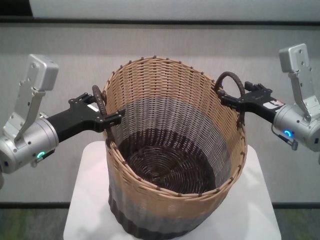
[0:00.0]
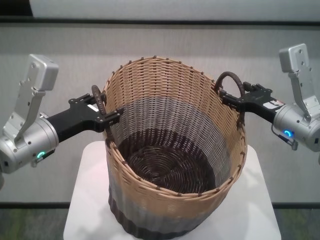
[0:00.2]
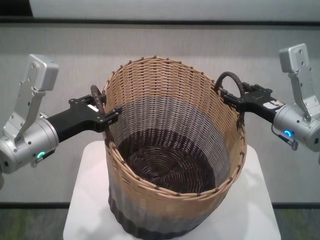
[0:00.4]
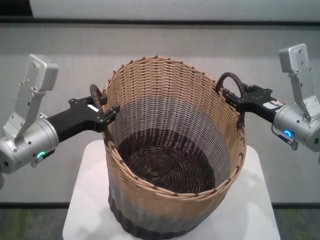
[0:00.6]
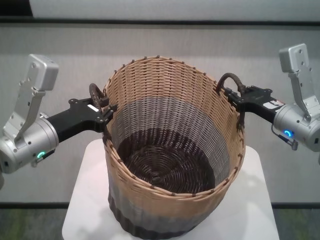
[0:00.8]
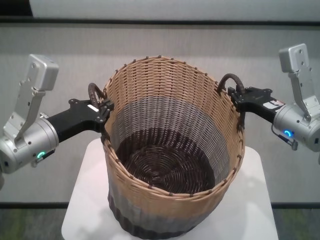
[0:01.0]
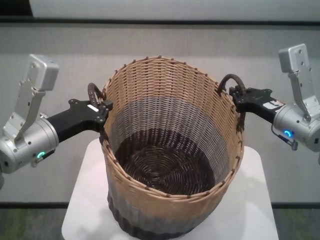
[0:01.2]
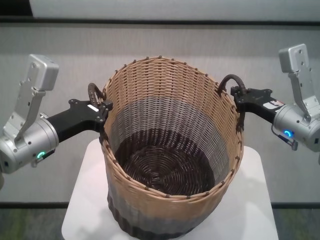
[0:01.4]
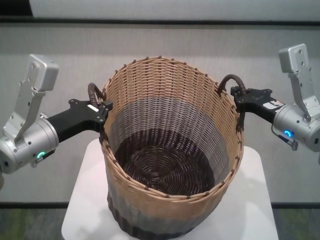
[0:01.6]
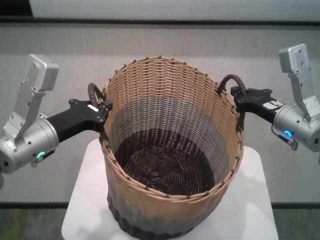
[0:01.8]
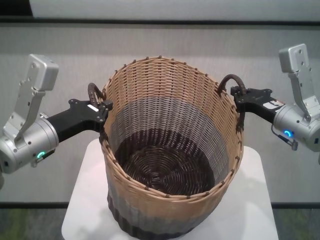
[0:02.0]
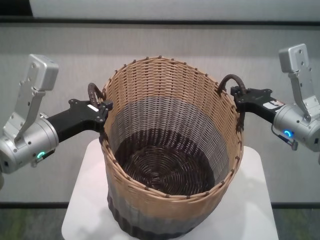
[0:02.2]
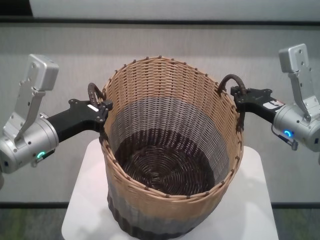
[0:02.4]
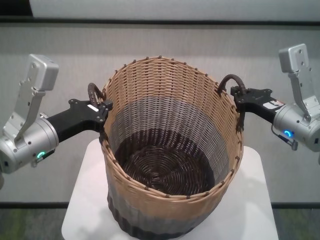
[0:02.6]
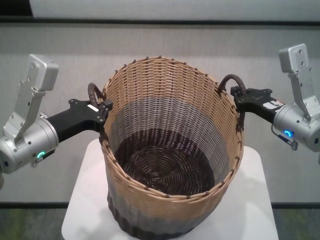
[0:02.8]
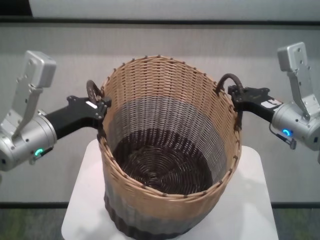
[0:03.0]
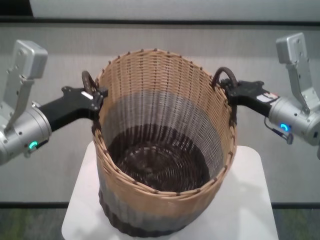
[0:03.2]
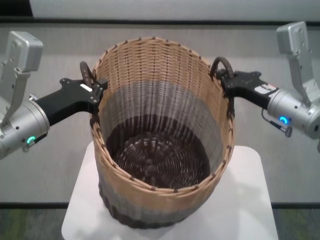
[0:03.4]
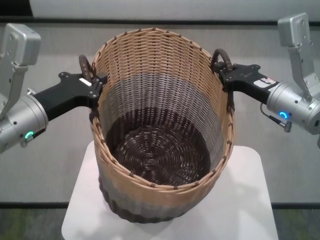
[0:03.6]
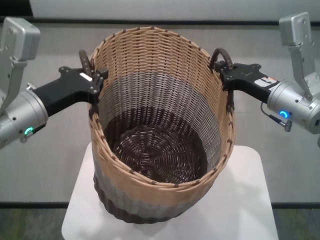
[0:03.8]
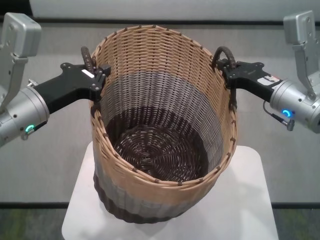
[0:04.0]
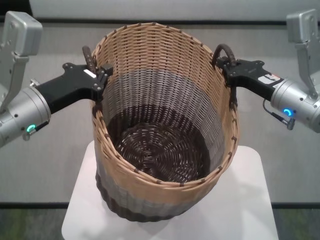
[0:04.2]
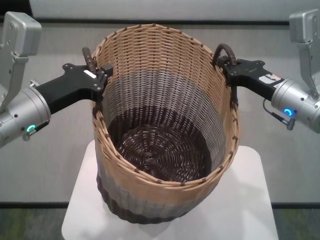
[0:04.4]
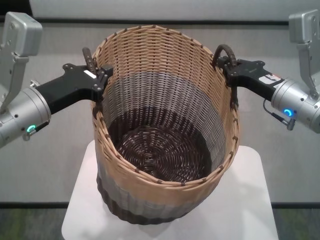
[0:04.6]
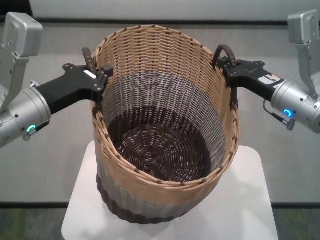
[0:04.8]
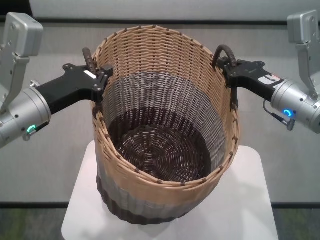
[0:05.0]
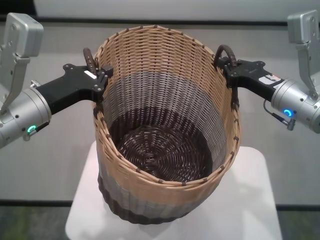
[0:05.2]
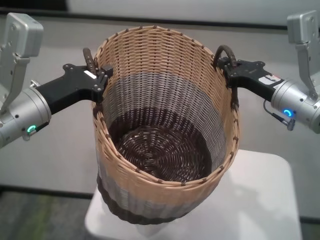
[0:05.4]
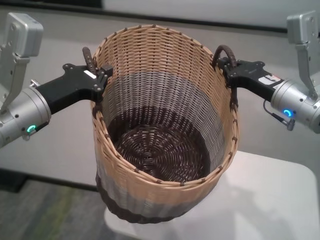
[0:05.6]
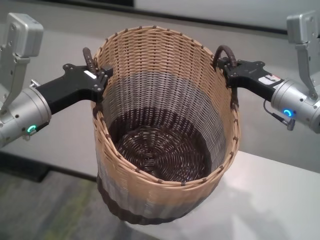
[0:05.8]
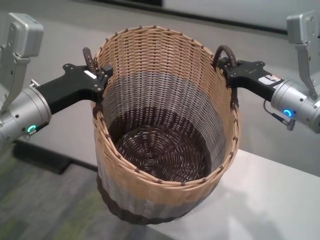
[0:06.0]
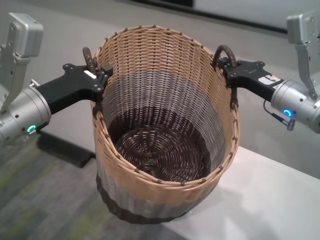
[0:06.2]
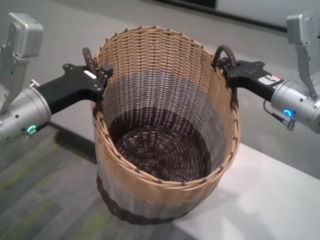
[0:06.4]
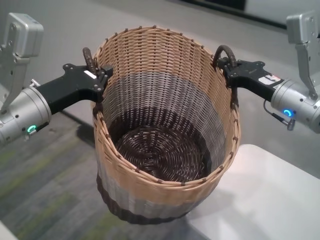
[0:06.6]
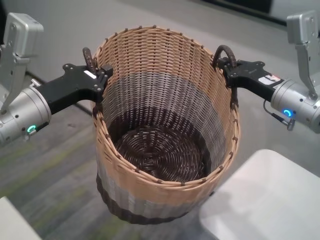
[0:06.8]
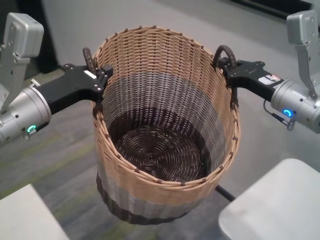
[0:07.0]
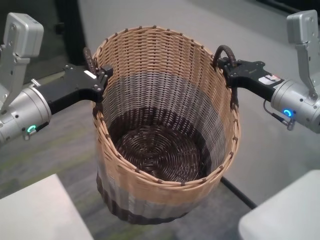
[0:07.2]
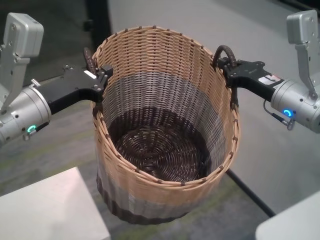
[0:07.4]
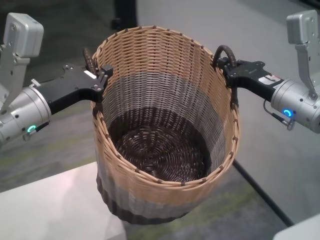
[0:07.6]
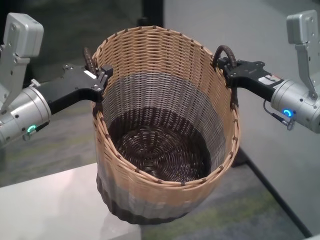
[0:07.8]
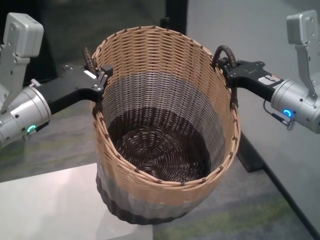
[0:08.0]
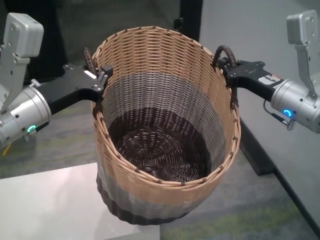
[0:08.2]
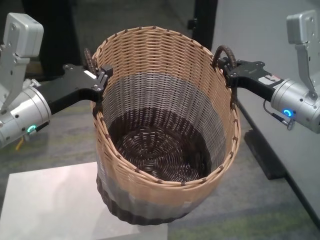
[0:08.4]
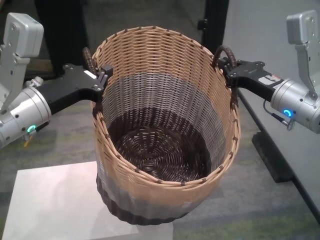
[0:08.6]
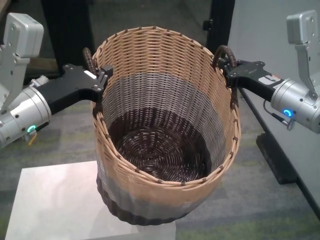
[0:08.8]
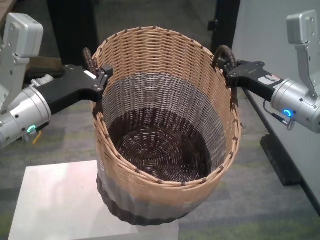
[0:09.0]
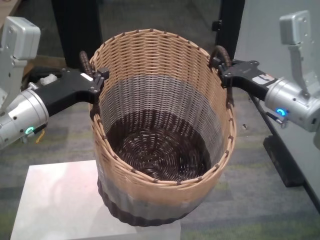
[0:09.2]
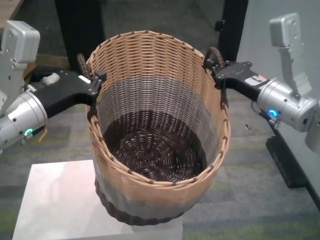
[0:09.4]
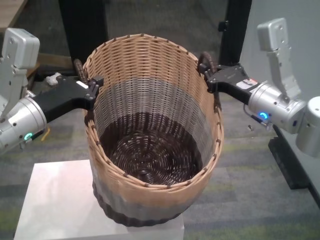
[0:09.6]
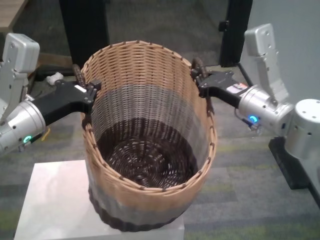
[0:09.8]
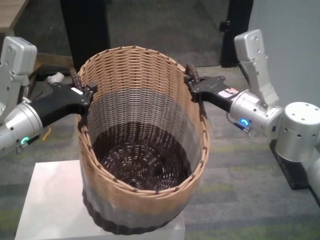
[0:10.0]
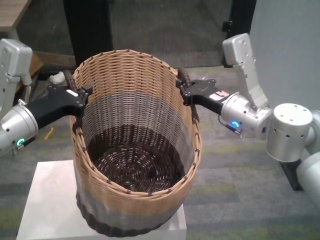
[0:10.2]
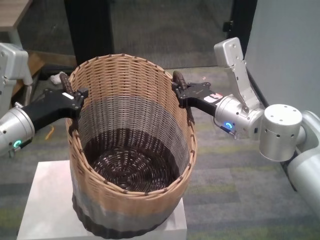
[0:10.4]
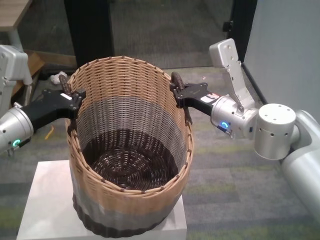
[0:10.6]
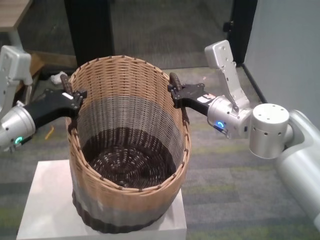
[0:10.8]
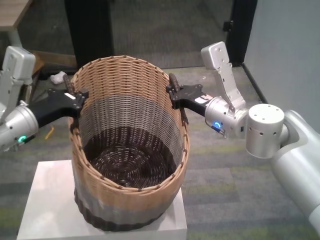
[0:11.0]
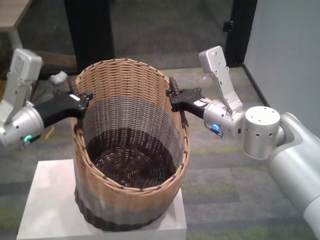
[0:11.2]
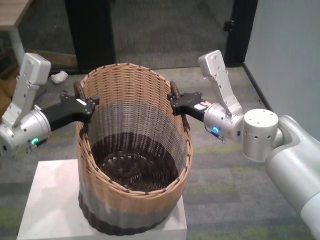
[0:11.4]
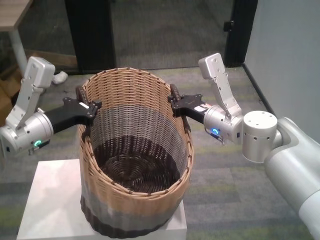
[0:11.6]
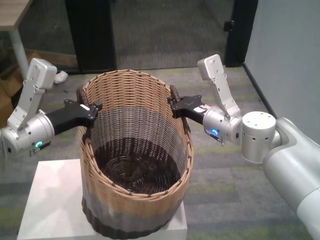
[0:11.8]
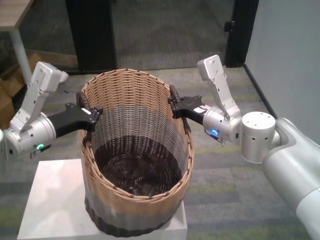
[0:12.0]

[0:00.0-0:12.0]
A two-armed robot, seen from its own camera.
Task of the whole recording: carry the clothes basket in coordination with both hands.
Step, 0:00.0 to 0:02.6: Grasp the basket with both grippers.
Step, 0:02.8 to 0:09.4: Move the basket above the other table.

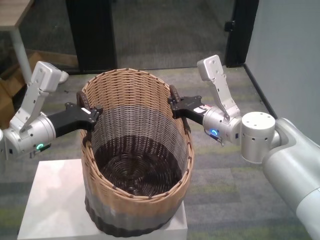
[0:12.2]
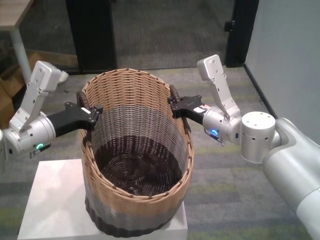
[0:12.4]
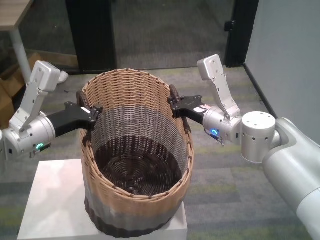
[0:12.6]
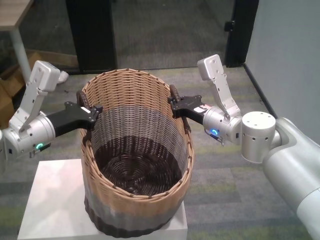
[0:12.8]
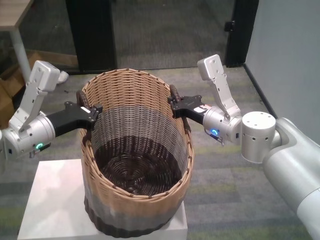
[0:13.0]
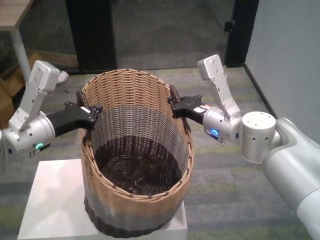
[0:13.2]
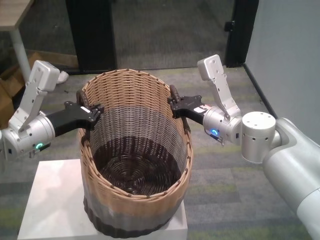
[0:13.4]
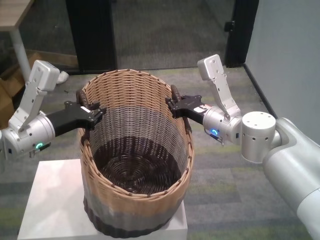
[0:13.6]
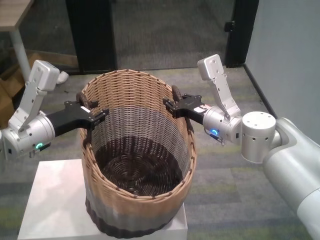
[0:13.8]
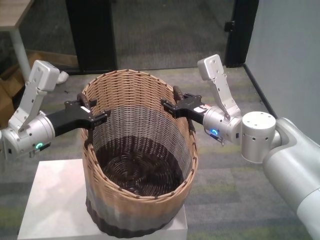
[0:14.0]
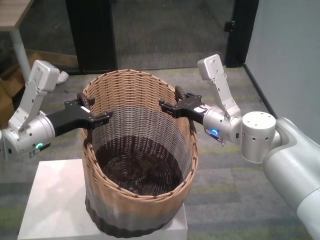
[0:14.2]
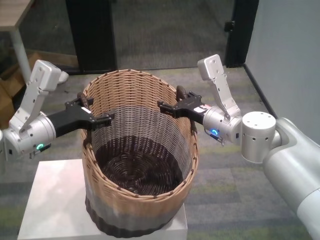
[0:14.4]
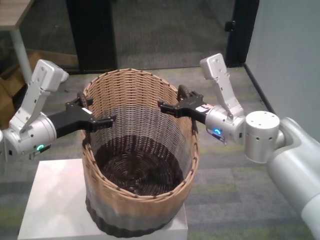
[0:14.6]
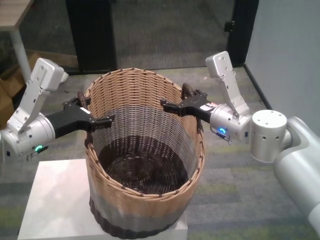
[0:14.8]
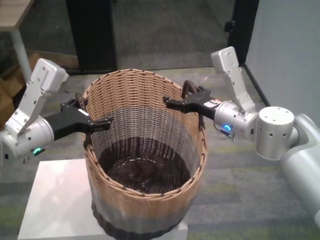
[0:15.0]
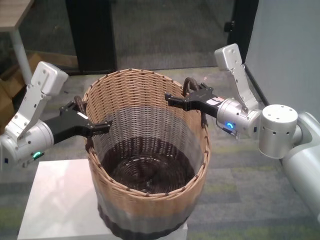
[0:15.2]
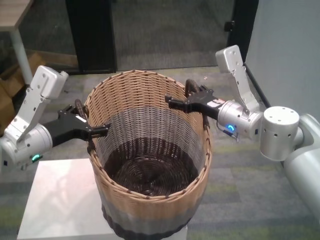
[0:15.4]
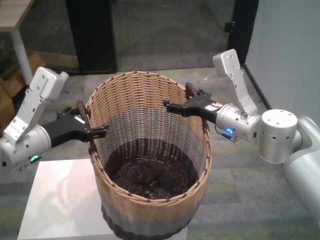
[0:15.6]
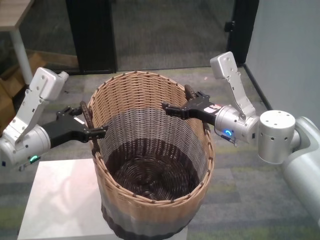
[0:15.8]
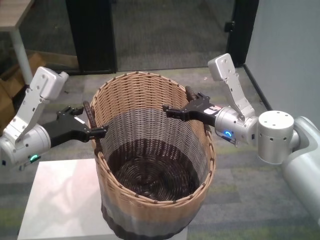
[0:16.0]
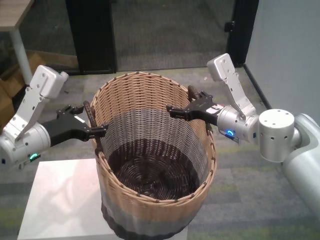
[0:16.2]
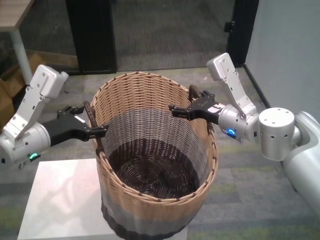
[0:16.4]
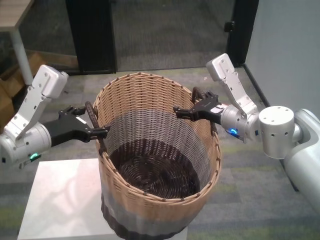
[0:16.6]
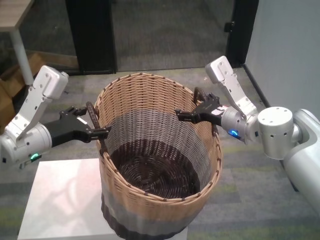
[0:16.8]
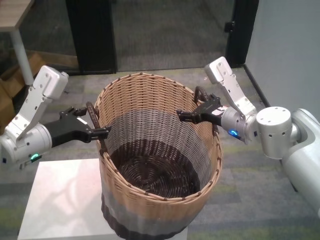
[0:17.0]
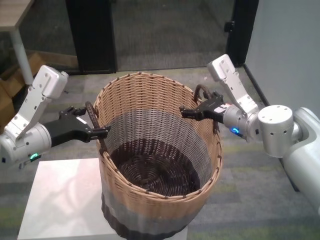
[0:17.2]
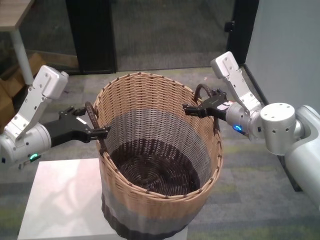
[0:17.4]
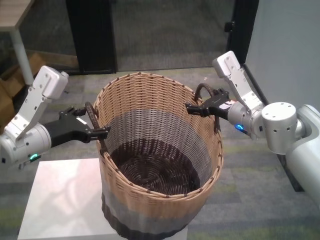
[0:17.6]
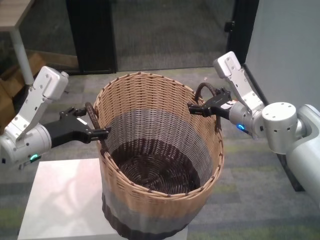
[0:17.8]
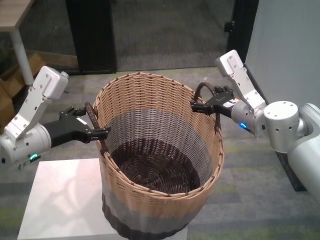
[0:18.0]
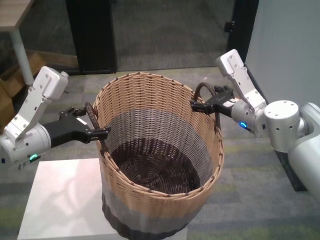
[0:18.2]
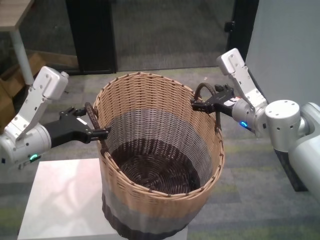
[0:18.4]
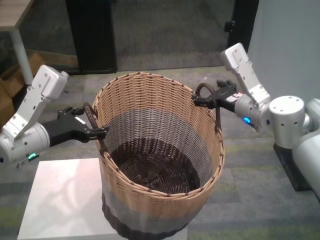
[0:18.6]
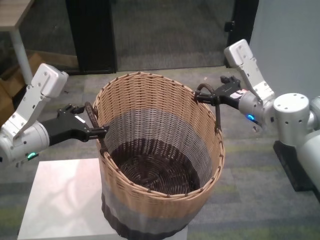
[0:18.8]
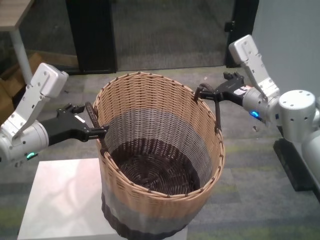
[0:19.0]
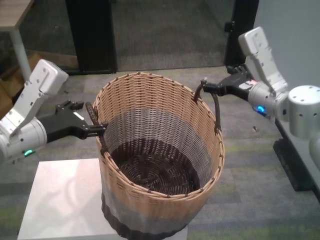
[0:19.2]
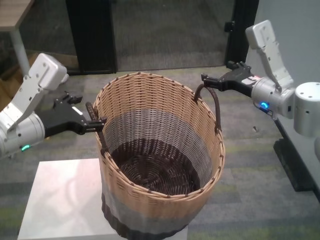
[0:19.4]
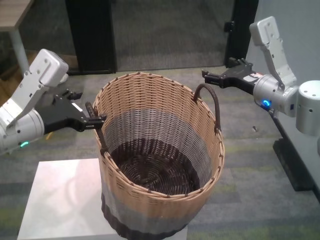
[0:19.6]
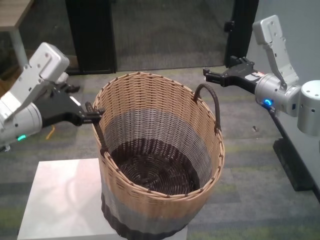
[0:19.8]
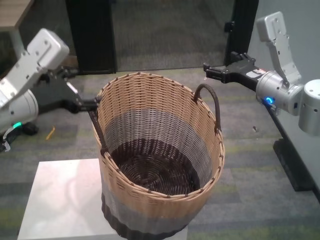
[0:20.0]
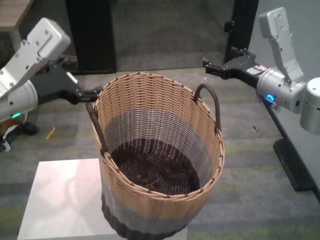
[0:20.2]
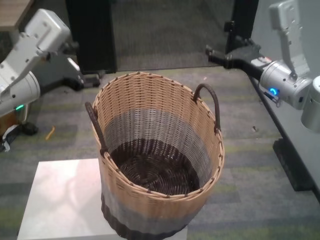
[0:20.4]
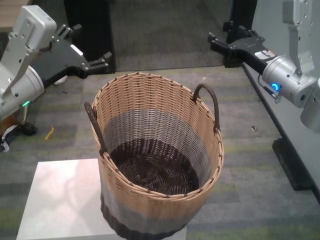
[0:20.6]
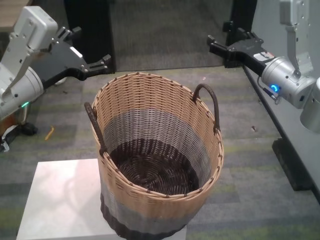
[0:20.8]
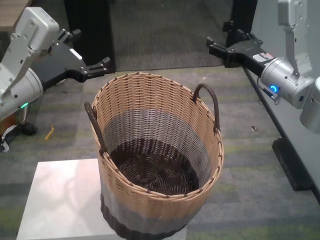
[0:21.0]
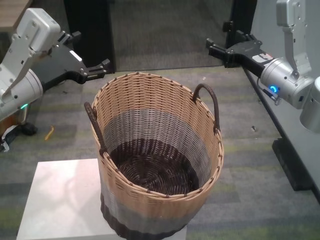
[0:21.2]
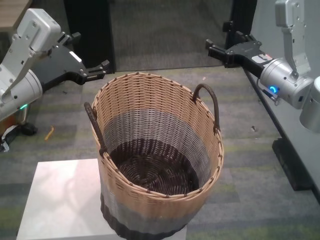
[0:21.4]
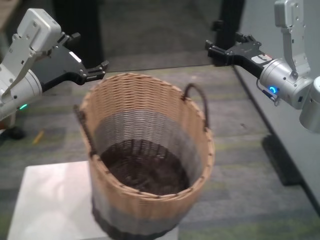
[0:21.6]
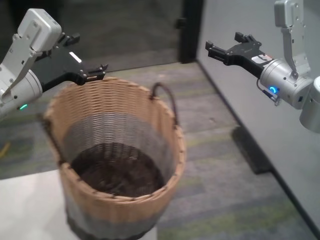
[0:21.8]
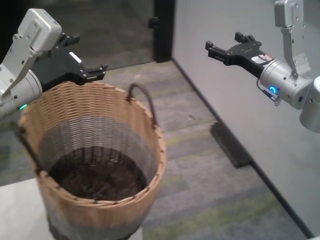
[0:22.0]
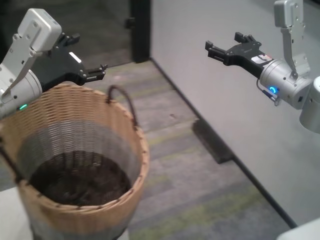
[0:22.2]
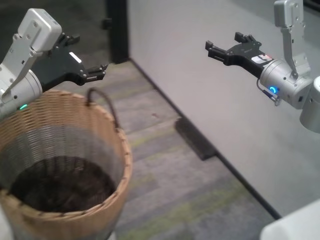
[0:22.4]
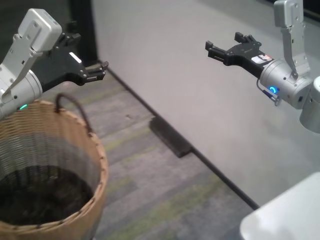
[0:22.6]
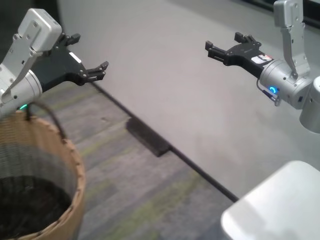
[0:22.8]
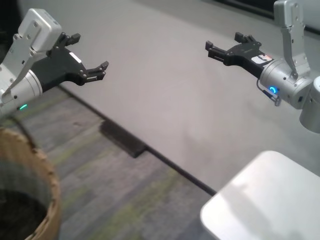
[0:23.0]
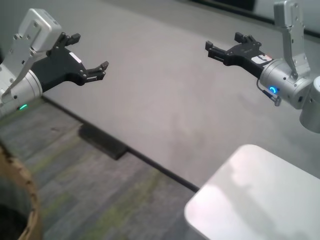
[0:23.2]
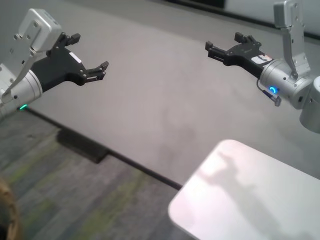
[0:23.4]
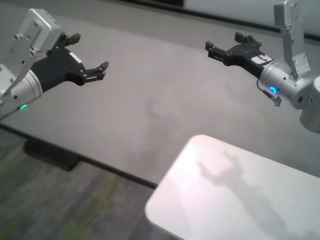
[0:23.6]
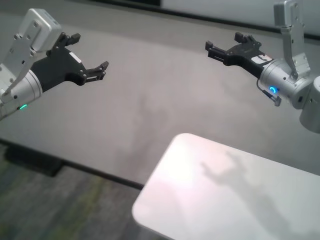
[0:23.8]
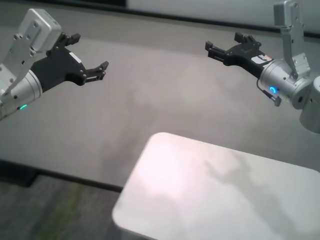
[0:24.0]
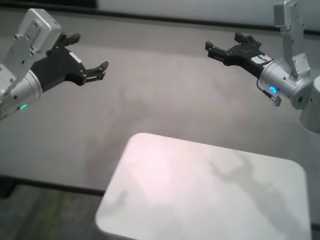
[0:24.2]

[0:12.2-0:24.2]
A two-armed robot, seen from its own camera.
Task of the whole recording: carry the clothes basket in coordination with both hands.
Step, 0:12.2 to 0:18.8: Place the basket on the table with both grippers.
